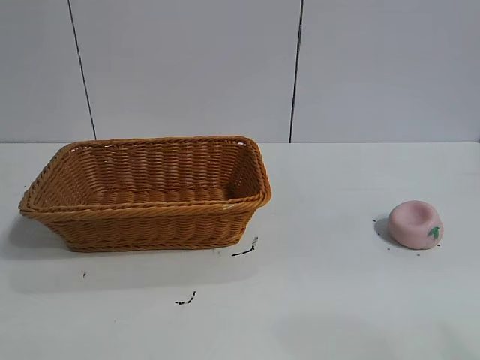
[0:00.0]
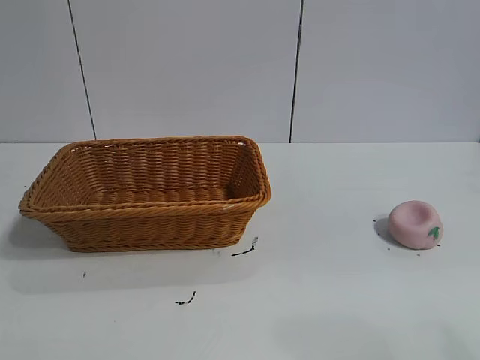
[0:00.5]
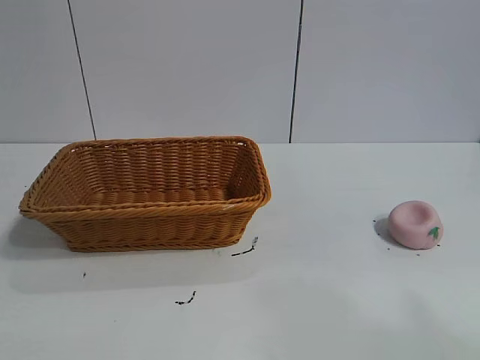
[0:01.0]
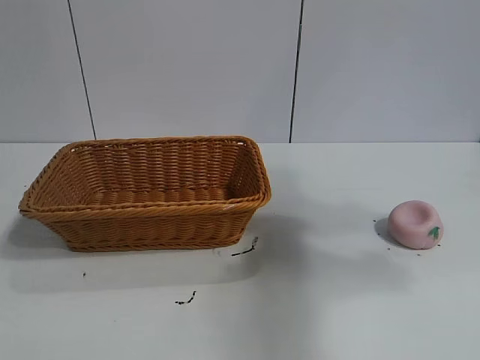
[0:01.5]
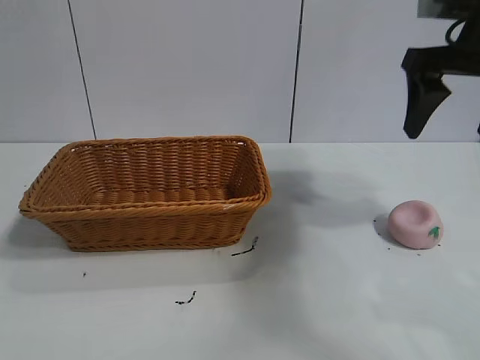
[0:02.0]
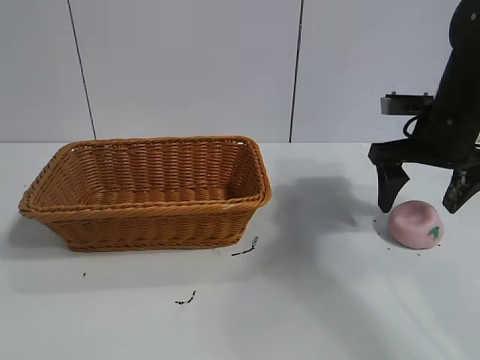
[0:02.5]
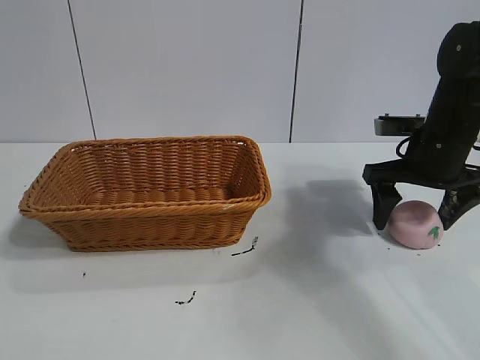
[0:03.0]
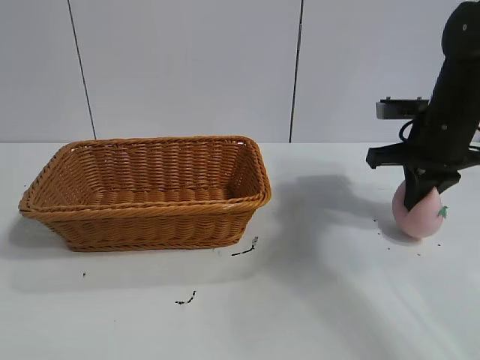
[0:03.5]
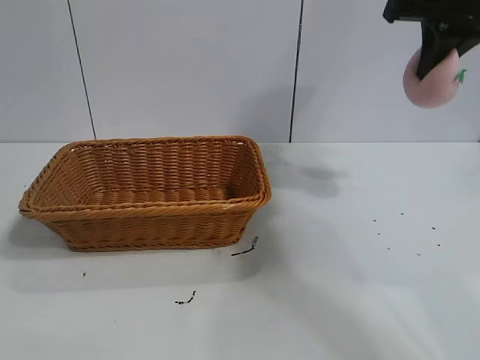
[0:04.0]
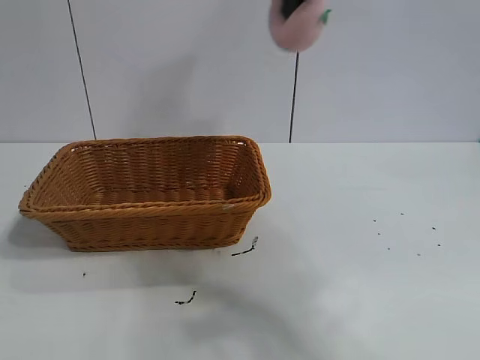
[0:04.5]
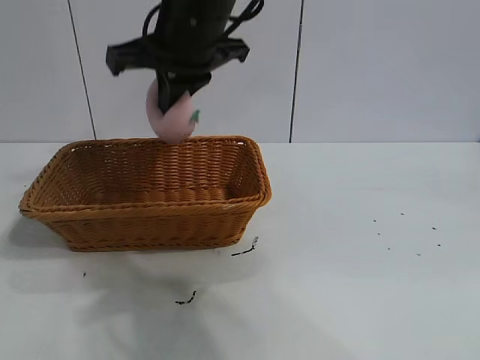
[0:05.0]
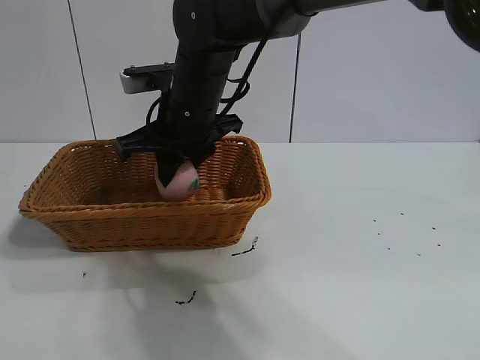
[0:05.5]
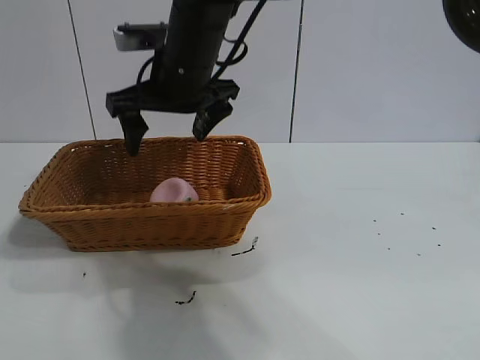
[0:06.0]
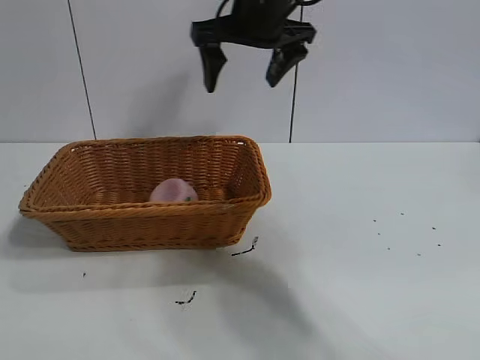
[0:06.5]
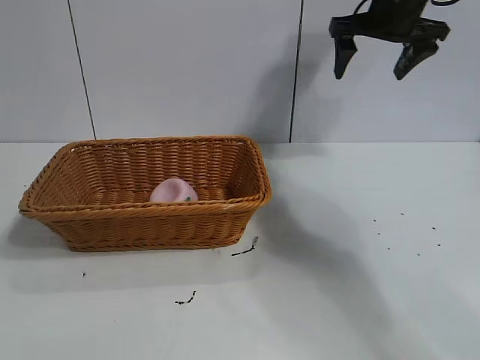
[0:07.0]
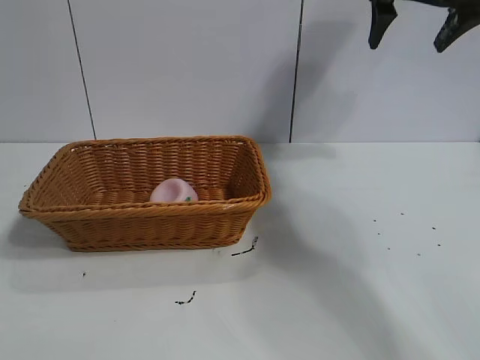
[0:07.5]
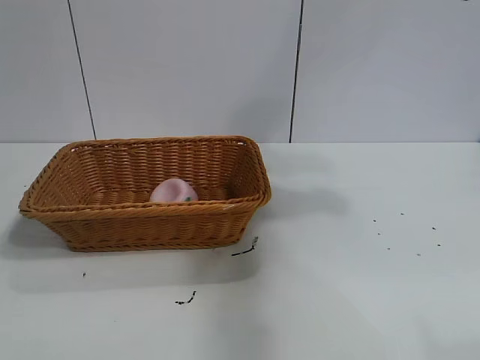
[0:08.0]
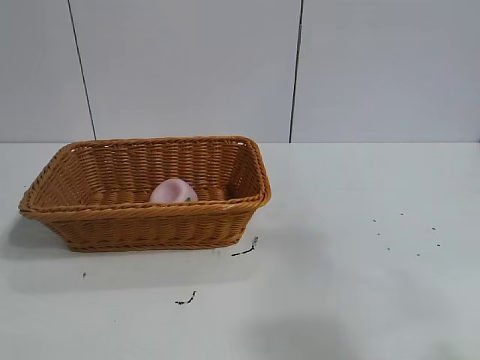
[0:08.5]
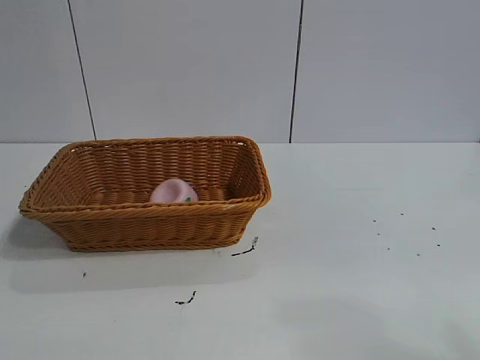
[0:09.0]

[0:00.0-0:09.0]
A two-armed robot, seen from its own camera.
Task of the whole recording: pick up the peach and put it into the basket.
Step, 0:01.0 to 0:03.0: Grasp the peach with right gripper.
Step, 0:04.0 to 0:06.0: Place the peach in the basket with right gripper.

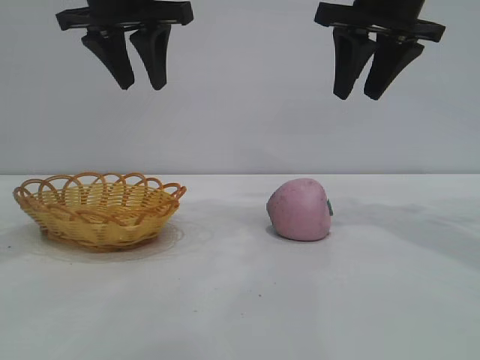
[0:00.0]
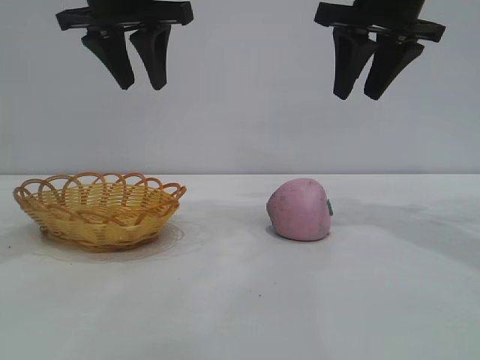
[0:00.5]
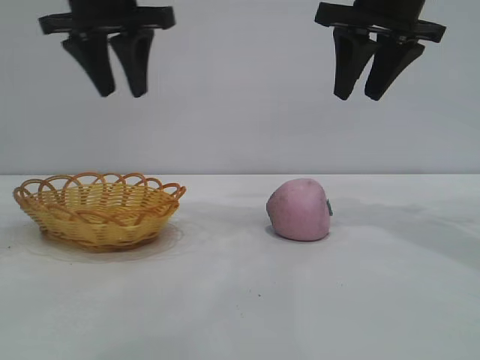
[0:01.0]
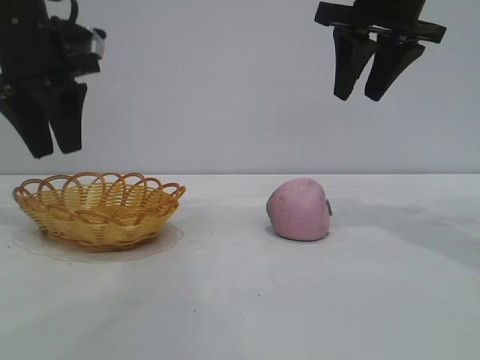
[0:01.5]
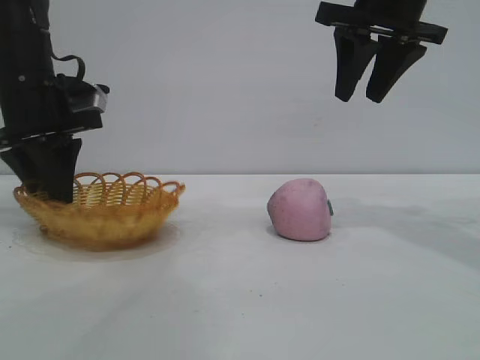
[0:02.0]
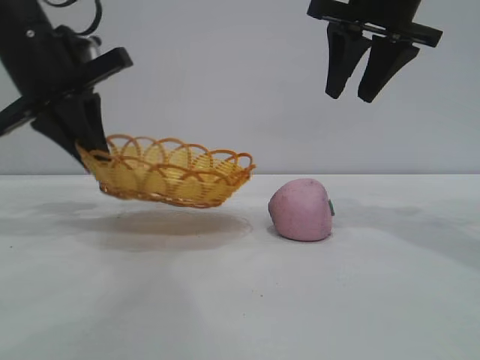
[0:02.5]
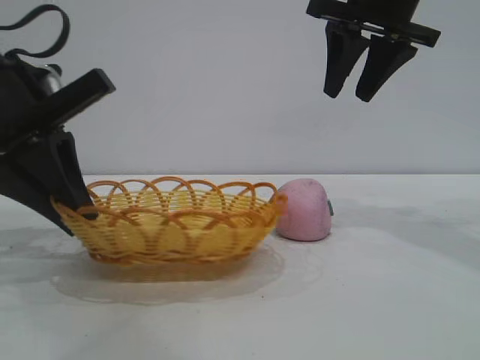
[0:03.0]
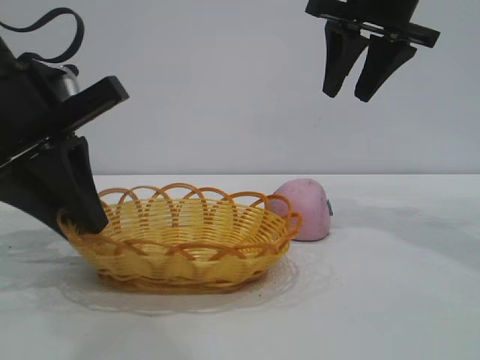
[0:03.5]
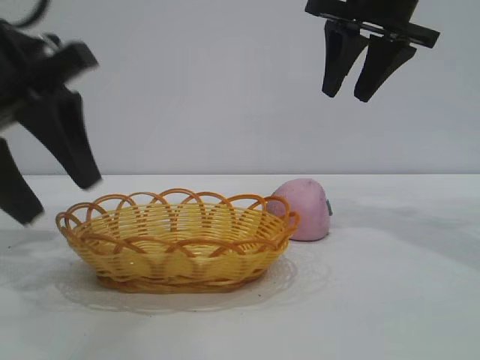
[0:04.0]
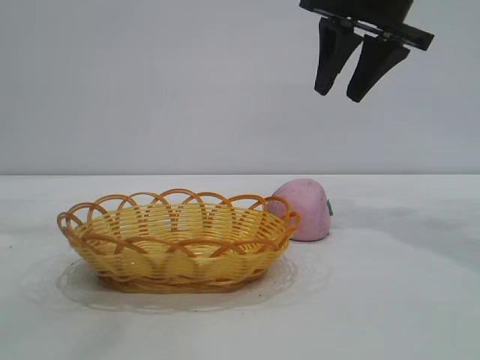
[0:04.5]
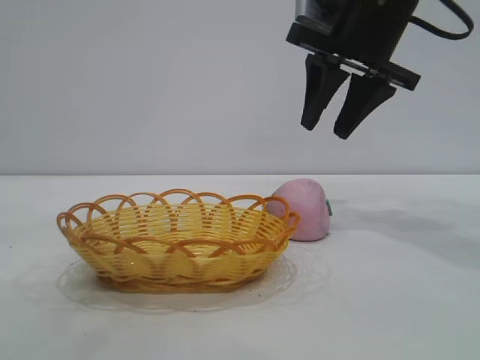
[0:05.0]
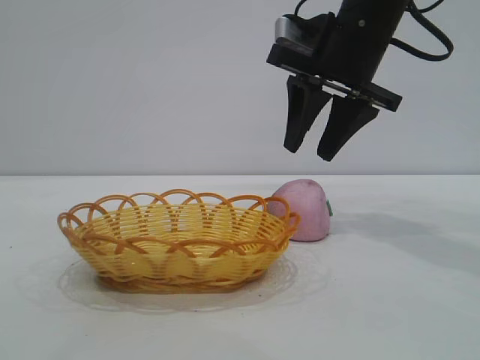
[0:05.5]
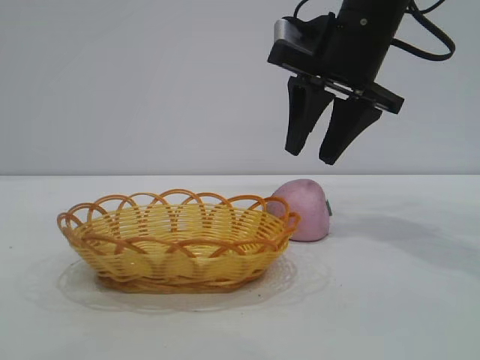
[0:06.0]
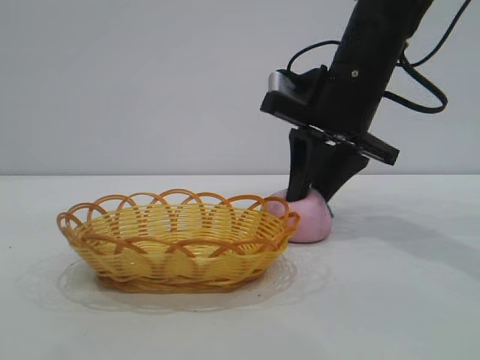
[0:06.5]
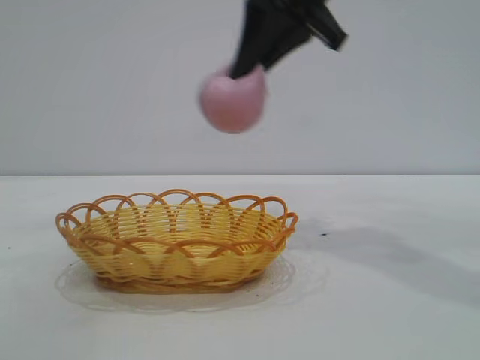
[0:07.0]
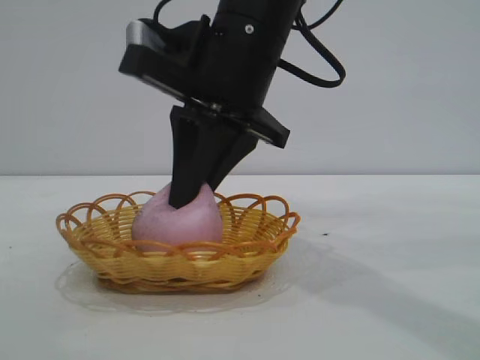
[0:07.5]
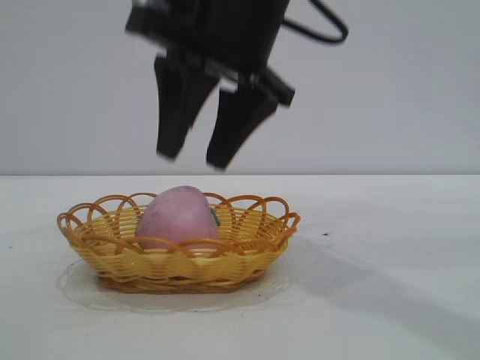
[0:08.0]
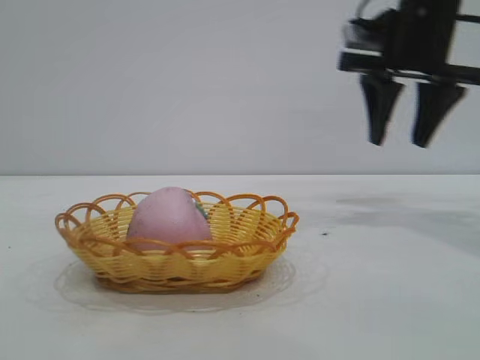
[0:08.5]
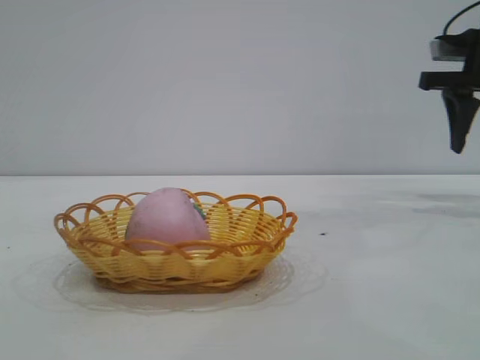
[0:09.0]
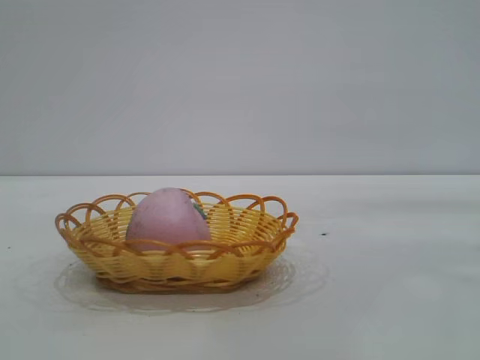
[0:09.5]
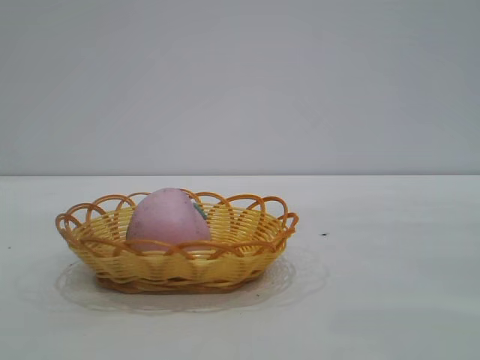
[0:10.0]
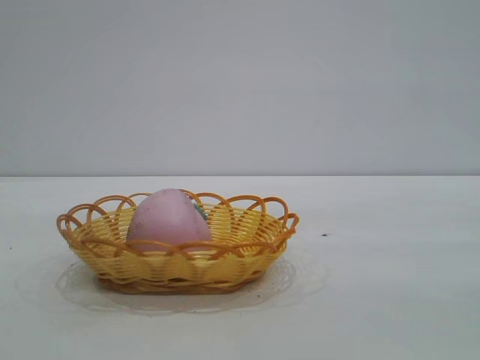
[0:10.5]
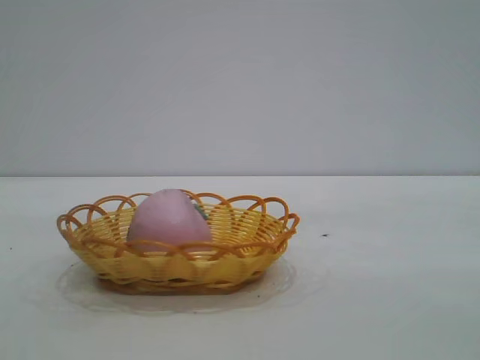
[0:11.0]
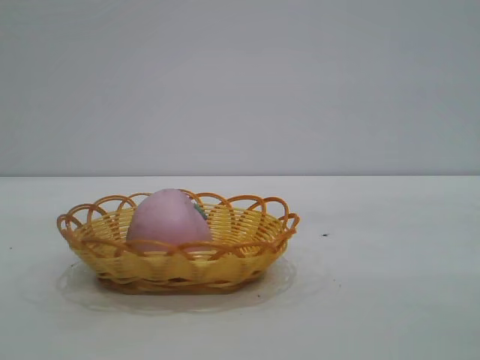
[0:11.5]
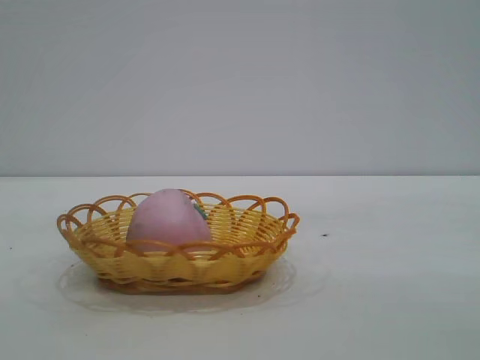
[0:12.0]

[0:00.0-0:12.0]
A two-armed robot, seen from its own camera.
Task of the whole recording: pick up the peach and put it into the basket.
Step, 0:00.0 to 0:04.0: Move the basket to the center of view.
Step, 0:04.5 to 0:06.5: Pick up the peach.
Step, 0:07.0 to 0:08.0: place the peach into the basket.

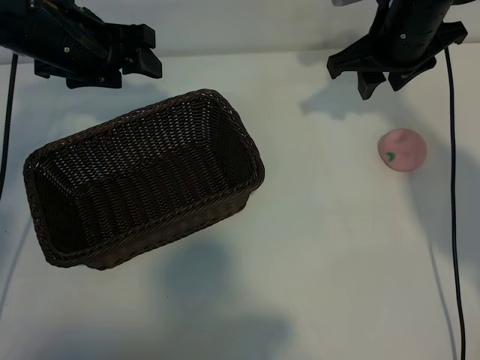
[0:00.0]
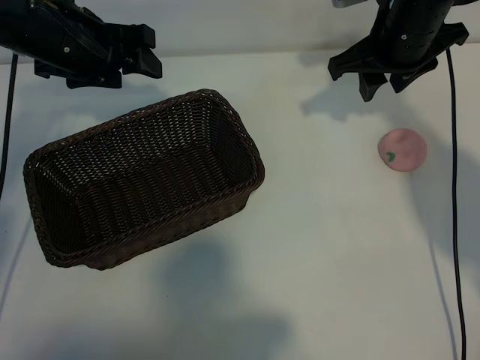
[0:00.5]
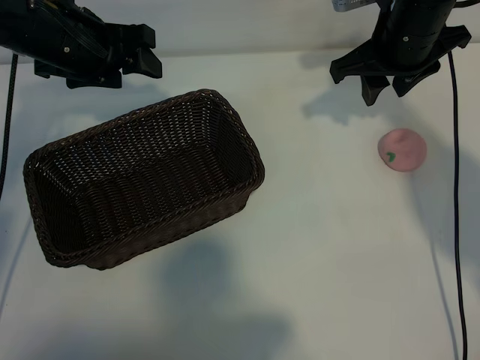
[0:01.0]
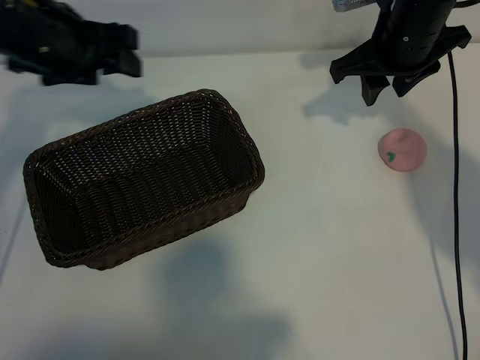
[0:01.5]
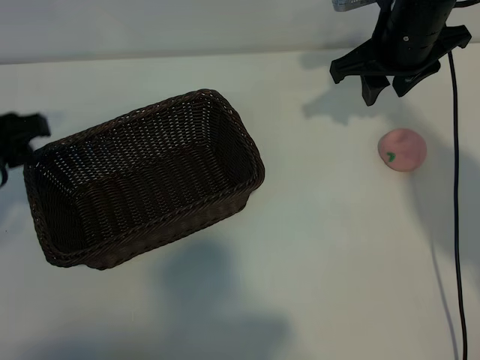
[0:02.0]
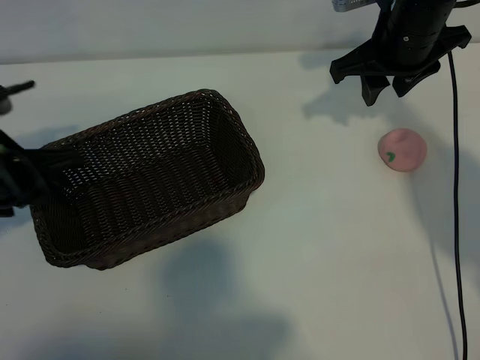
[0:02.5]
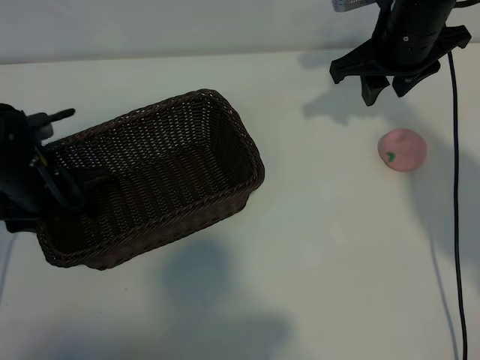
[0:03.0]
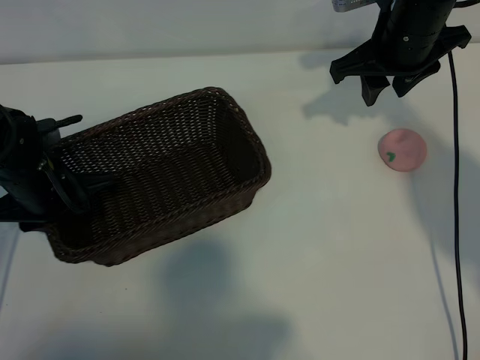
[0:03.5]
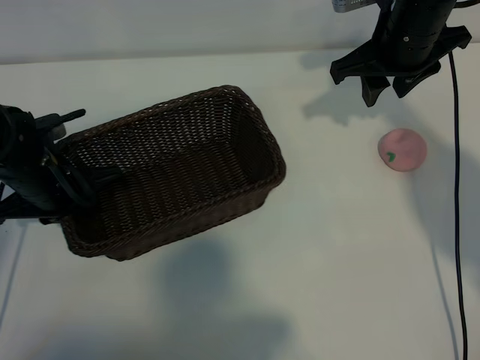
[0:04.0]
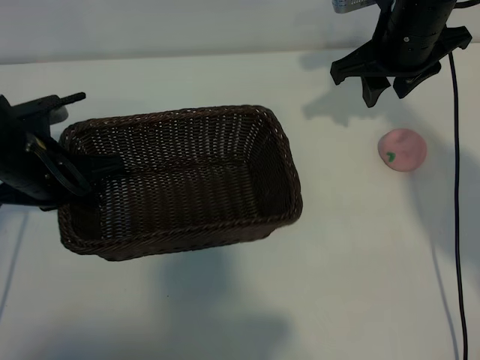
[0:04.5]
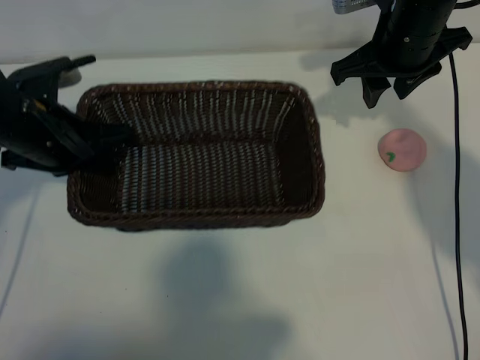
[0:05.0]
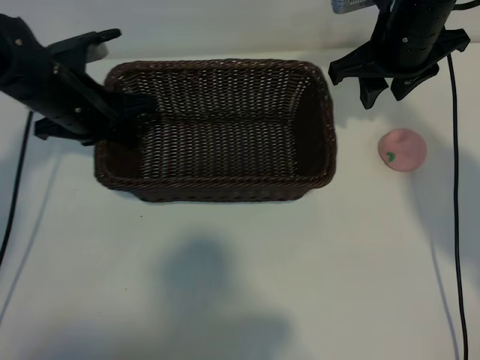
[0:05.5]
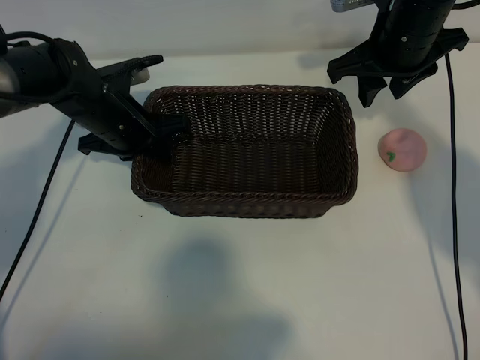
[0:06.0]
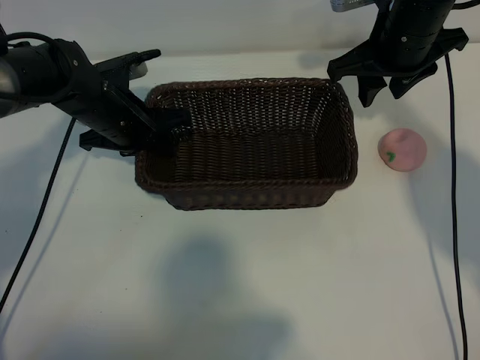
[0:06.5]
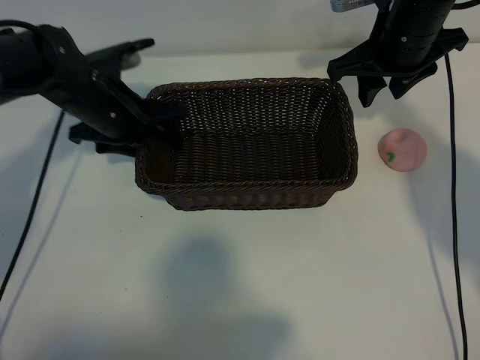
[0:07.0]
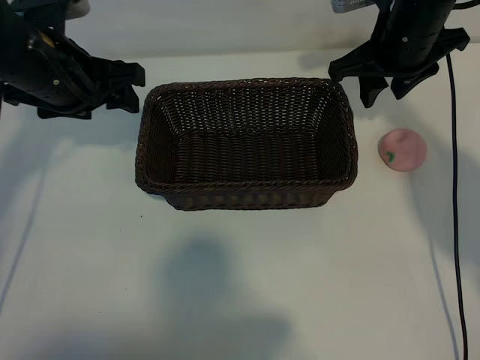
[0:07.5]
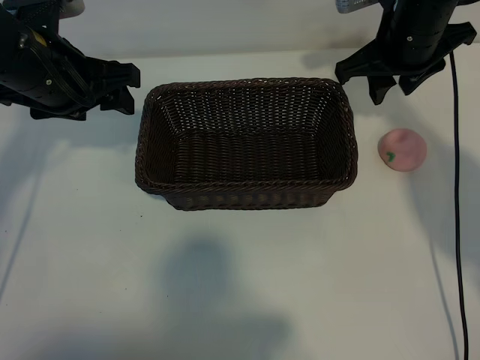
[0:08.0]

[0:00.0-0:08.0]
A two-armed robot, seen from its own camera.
Task of the whole recording: pick up the peach and put it into the basket.
Step, 0:01.0 to 0:03.5: Grasp the basket with left gripper.
Step, 0:04.0 to 0:06.5: Place the basket in the center of view with left gripper.
